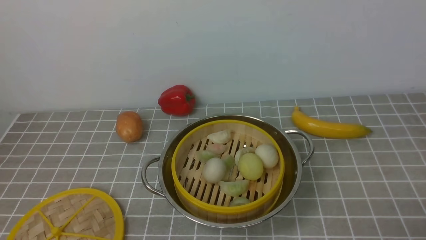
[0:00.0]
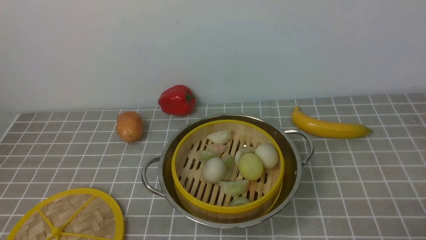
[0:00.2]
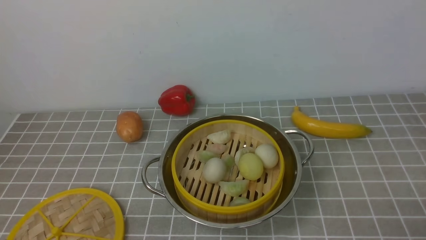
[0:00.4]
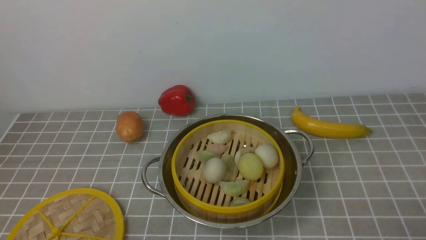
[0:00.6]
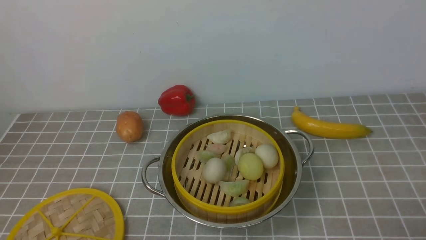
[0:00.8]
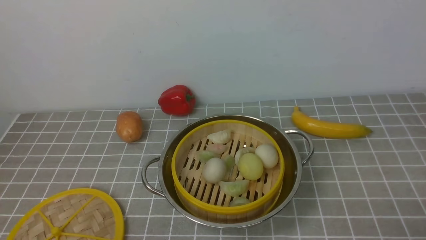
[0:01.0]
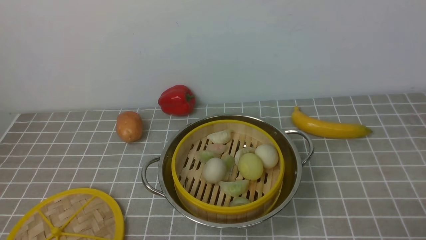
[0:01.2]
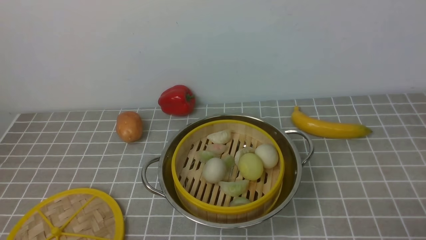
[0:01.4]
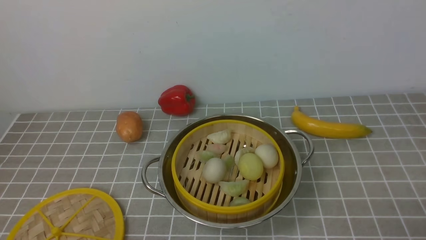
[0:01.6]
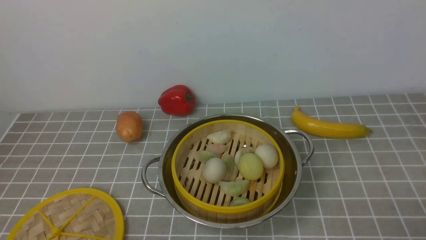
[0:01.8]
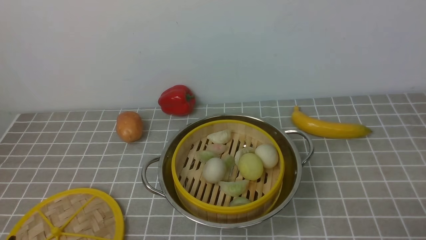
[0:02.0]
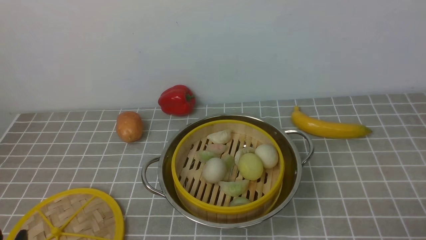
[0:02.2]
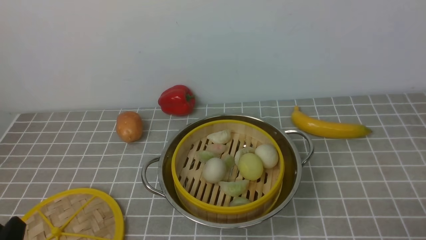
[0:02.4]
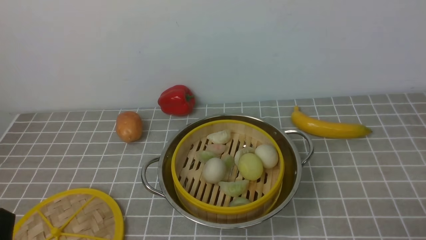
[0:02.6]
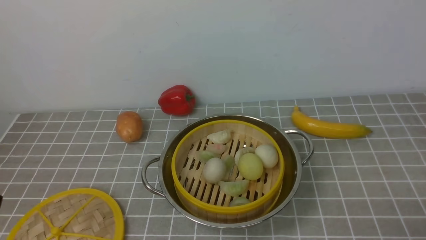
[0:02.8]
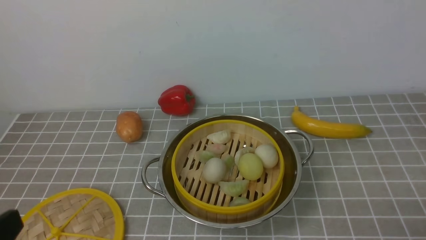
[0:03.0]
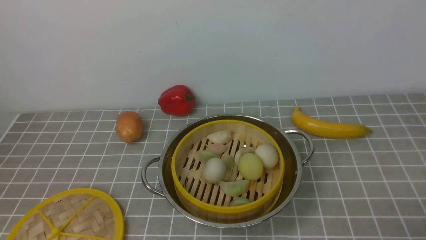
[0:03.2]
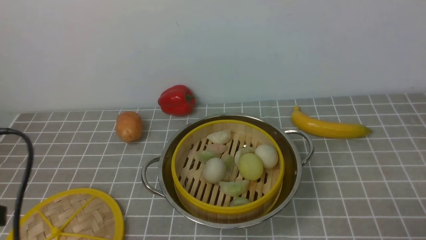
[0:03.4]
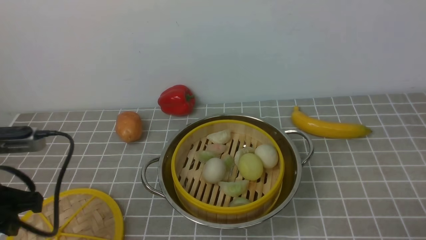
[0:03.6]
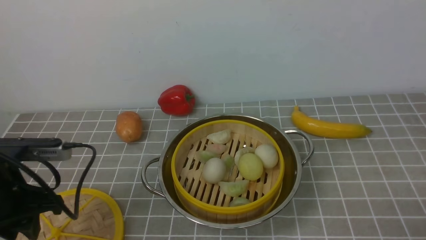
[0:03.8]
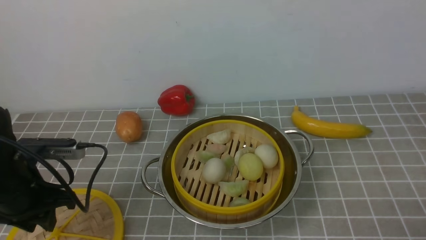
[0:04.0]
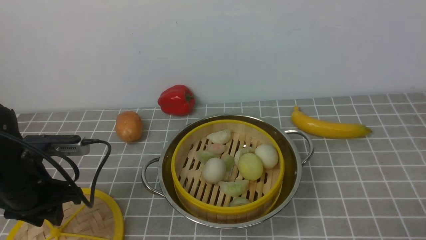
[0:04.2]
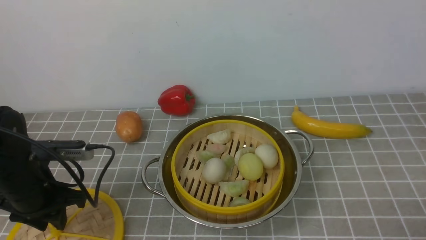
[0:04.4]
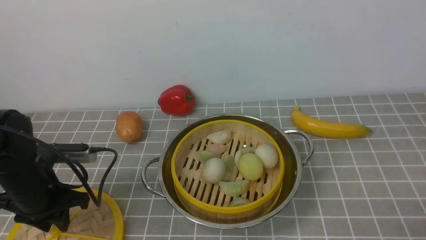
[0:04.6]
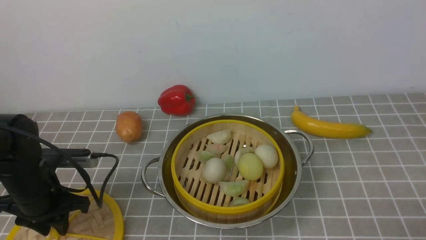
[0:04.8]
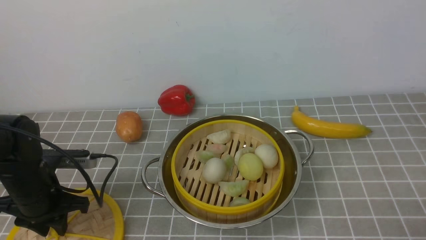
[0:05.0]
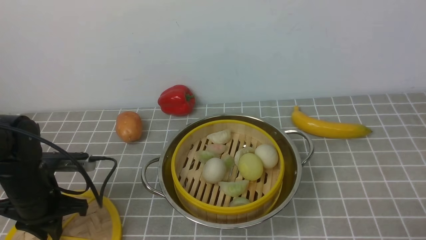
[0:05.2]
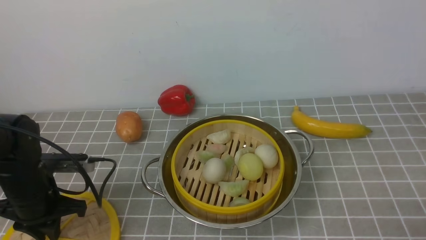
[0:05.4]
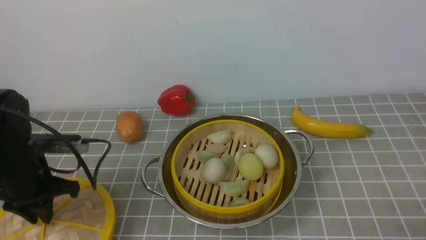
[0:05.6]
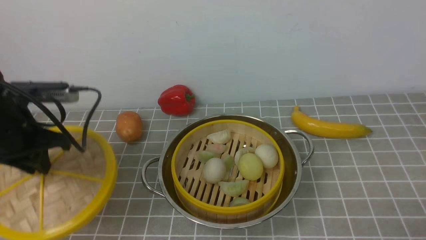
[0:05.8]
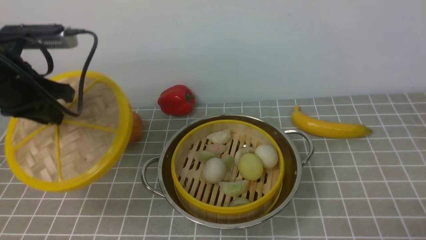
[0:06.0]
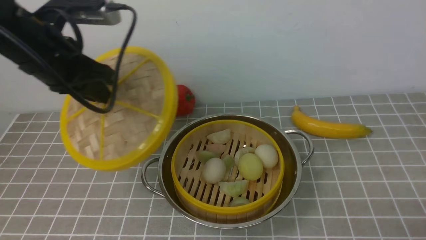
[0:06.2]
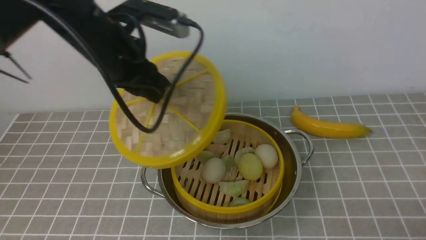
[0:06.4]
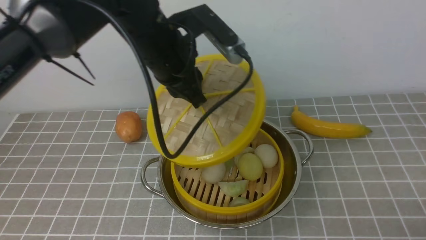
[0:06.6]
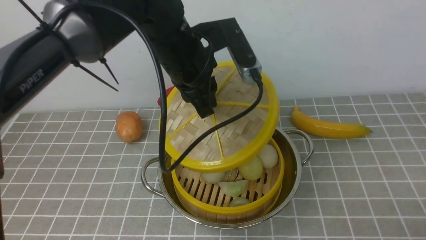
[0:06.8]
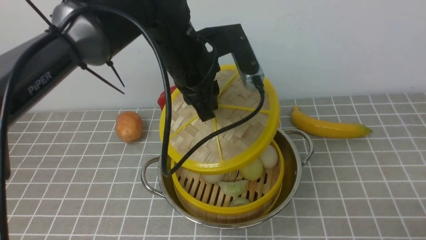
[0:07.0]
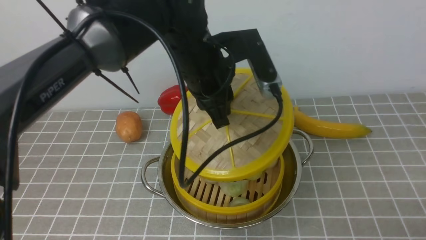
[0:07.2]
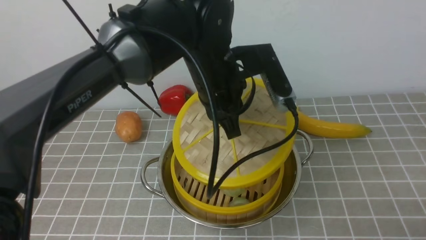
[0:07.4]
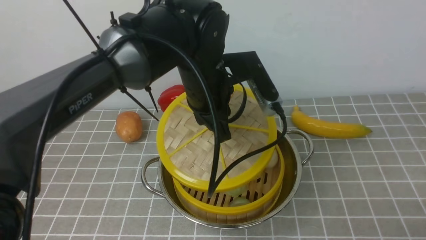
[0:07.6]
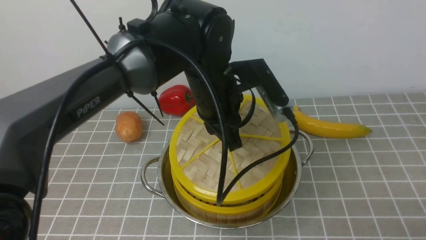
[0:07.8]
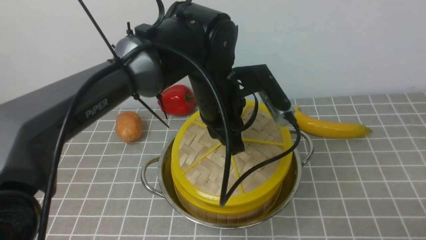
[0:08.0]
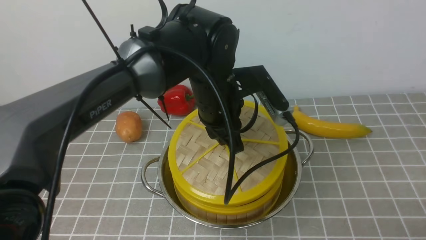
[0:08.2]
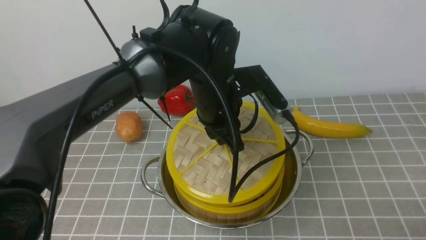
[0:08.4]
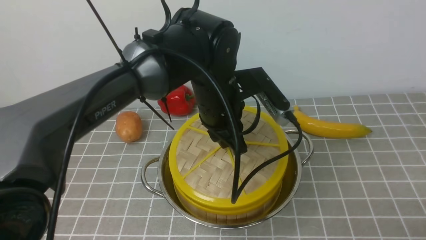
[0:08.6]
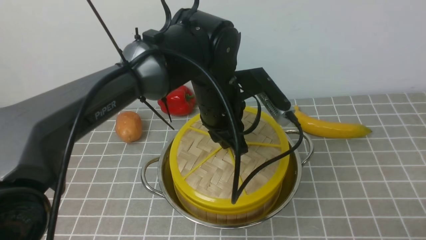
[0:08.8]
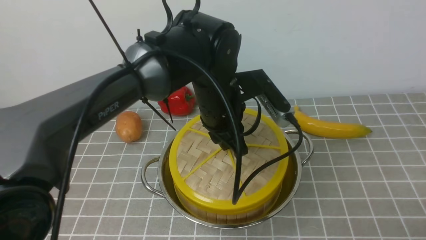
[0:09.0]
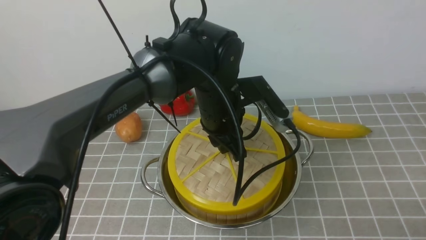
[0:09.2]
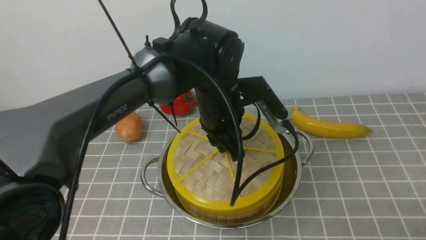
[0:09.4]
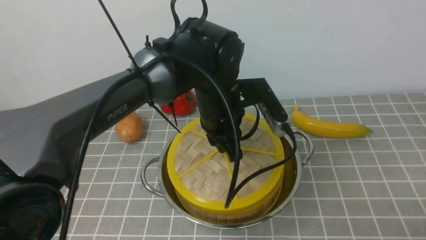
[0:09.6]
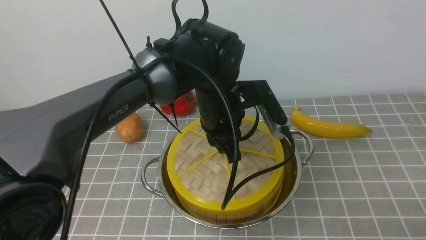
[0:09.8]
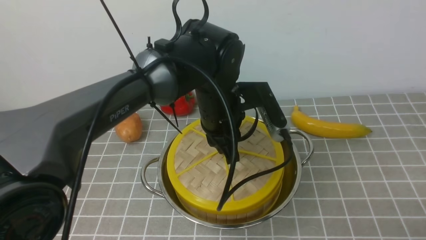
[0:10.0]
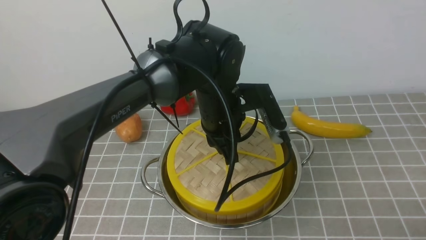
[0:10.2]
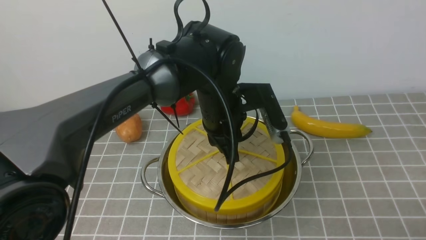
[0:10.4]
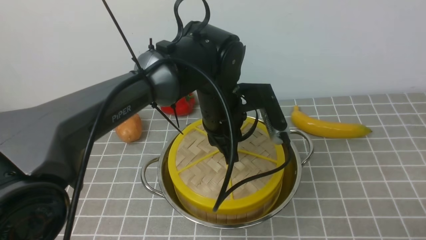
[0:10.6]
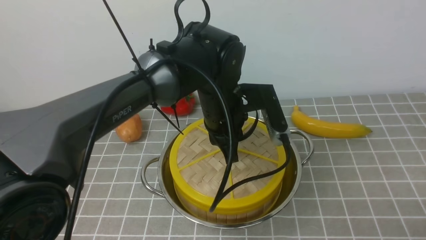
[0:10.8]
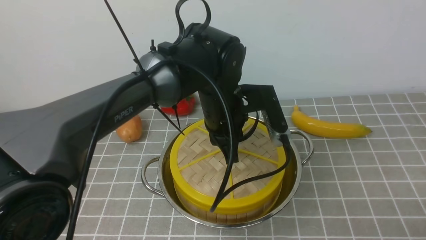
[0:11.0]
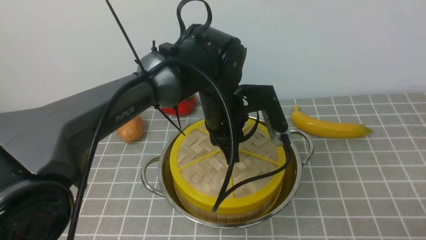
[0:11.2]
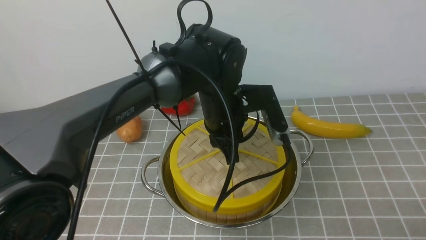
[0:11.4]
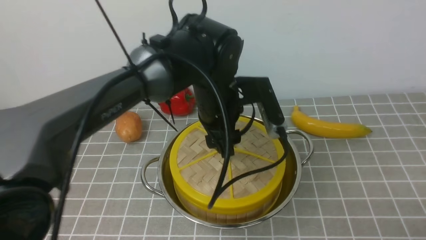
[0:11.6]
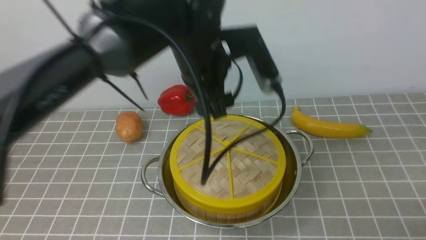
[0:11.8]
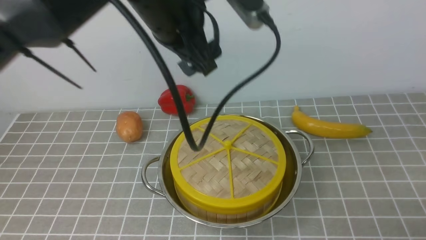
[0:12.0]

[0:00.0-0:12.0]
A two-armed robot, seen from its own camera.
Task of the whole recording: place the steamer in the pot on the grey tablecloth, and put the lid on the steamer.
Step, 0:00.0 to 0:05.4: use the left arm to lift the lid of the steamer.
Step, 0:05.6 to 0:11.6: use the left arm to place the steamer lid on the steamer.
0:03.0 to 0:04.4: The left gripper goes approximately 25 cm forward and downward.
0:04.4 to 0:06.0: The left gripper goes about 15 cm upward.
0:06.0 to 0:07.6: The left gripper shifts roughly 25 cm to the right.
0:09.0 to 0:10.4: There are only small adjustments of the grippers.
0:10.4 to 0:12.0: The left gripper shifts approximately 15 cm upward, and opens up.

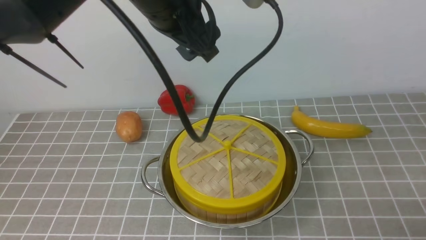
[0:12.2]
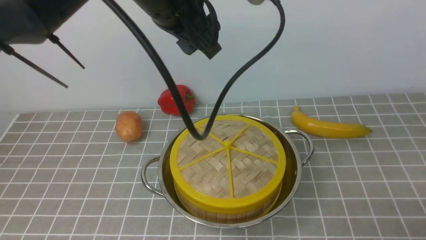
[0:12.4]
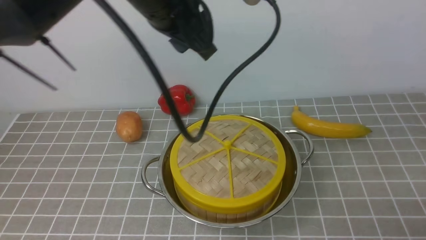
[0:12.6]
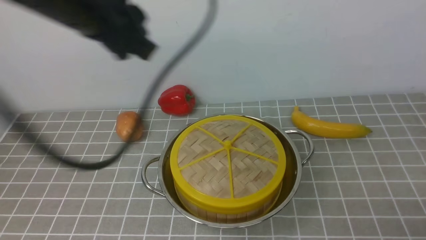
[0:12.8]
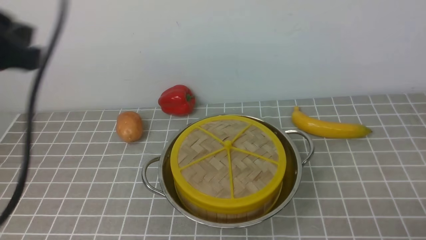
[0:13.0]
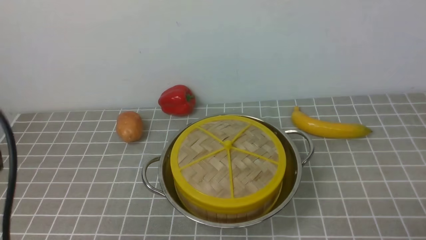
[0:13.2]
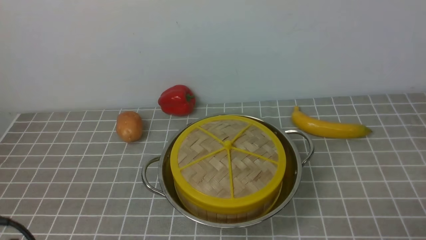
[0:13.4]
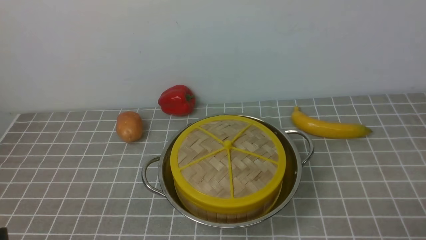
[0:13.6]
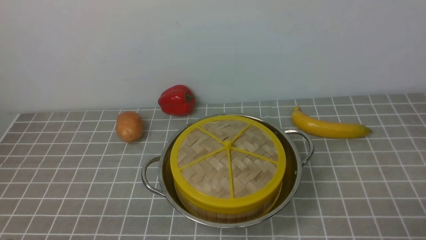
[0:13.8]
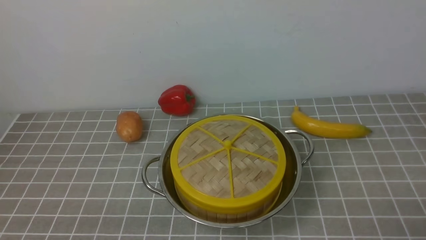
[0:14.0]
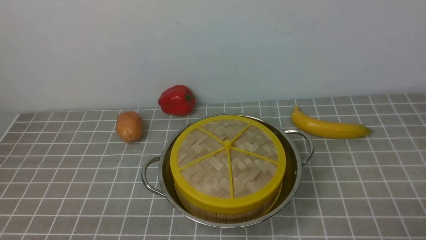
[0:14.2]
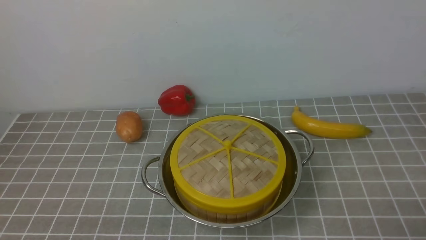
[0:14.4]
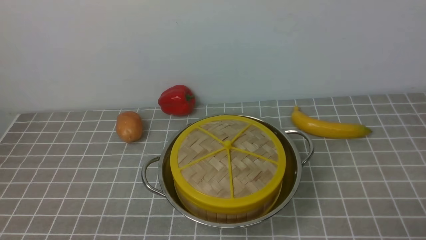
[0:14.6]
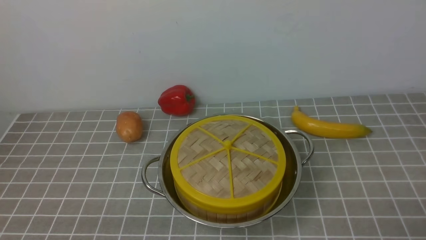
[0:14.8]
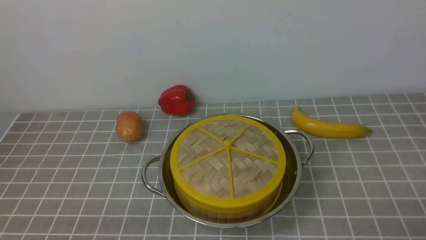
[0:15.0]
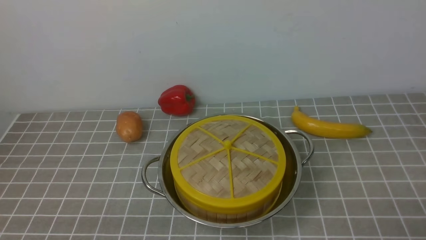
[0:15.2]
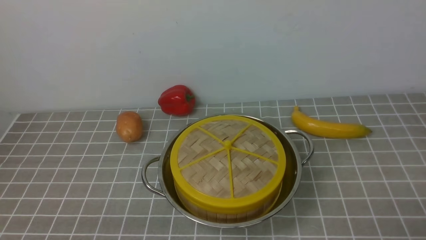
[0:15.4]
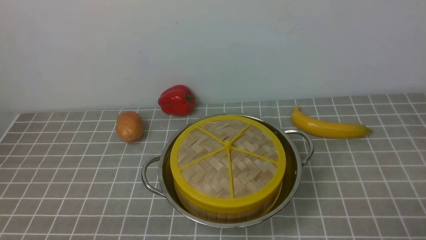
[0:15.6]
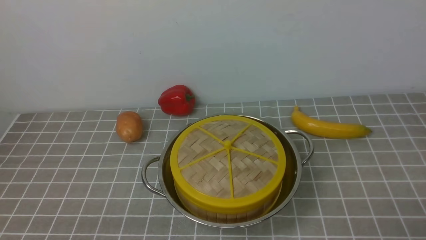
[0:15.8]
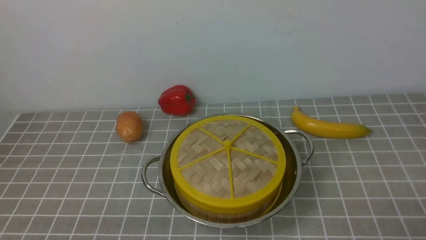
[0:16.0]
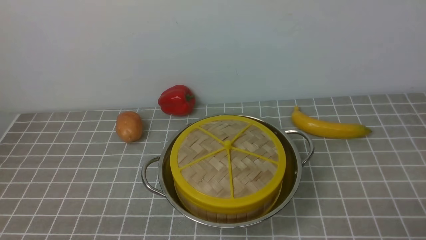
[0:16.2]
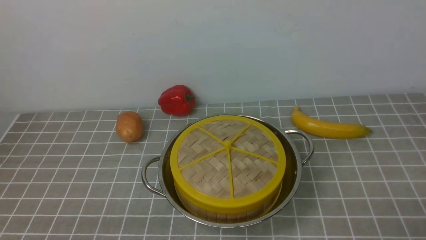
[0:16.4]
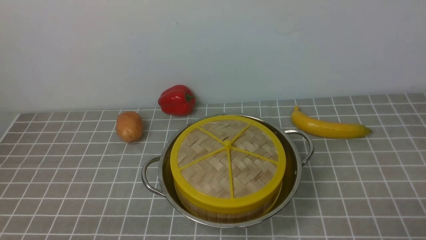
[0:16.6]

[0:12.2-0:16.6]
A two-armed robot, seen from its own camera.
Task of the whole recording: place the steamer in the pot on the grey tablecloth, and put the lid on the steamer.
0:12.2 to 0:13.6: The left gripper shifts approximately 40 cm backward, downward and to the left, and closes.
0:15.2 to 0:16.6: Neither gripper changes place.
